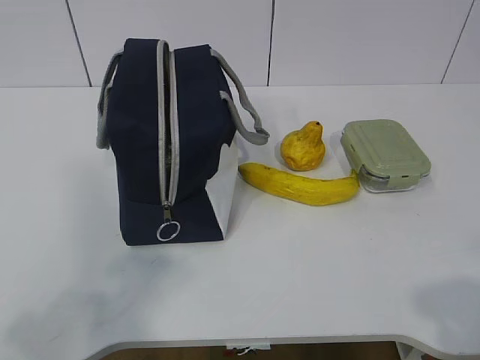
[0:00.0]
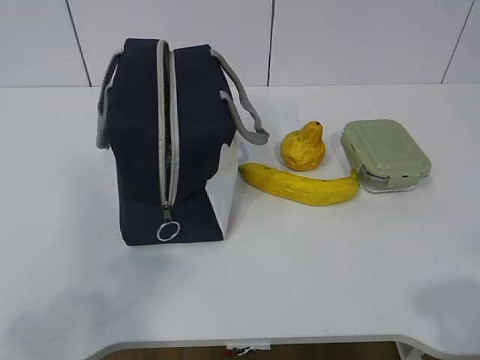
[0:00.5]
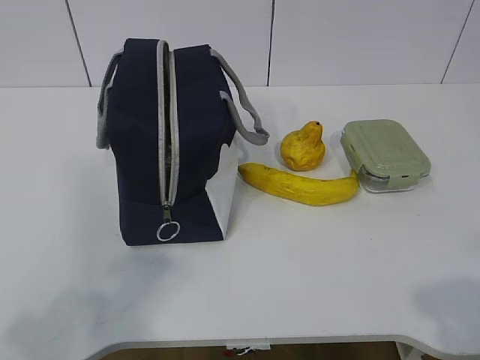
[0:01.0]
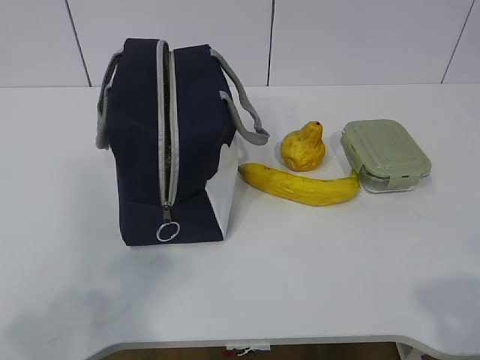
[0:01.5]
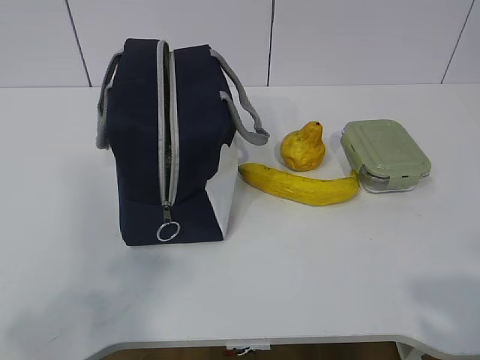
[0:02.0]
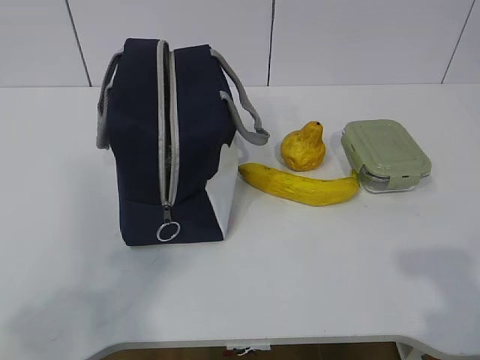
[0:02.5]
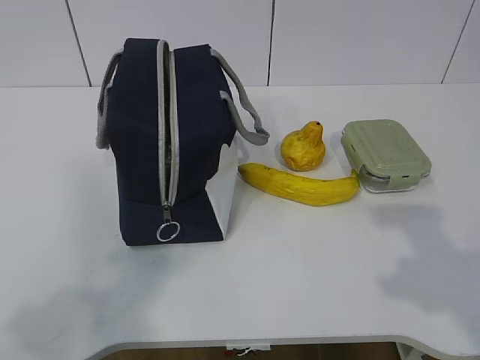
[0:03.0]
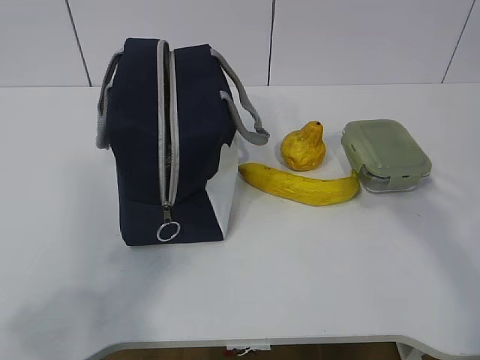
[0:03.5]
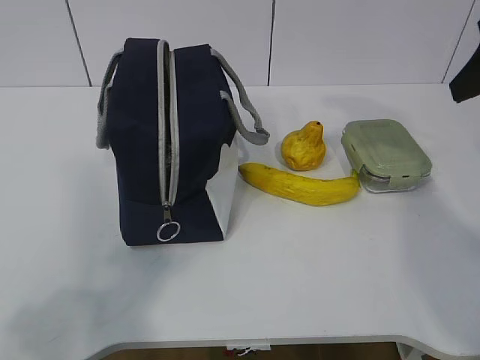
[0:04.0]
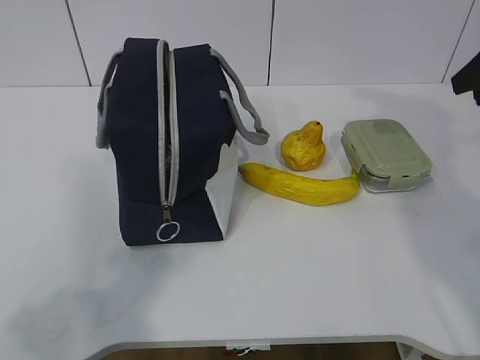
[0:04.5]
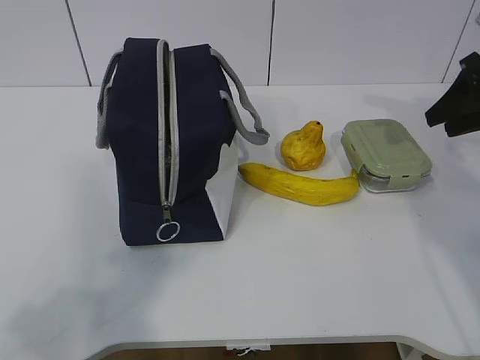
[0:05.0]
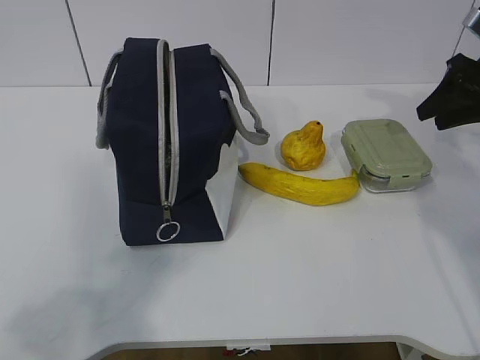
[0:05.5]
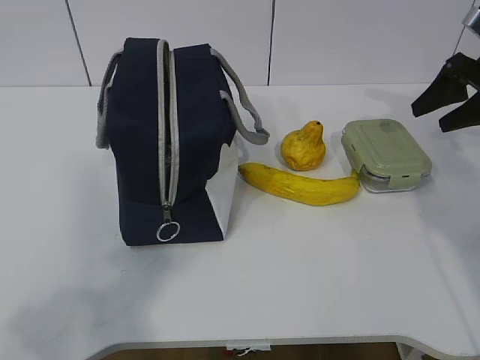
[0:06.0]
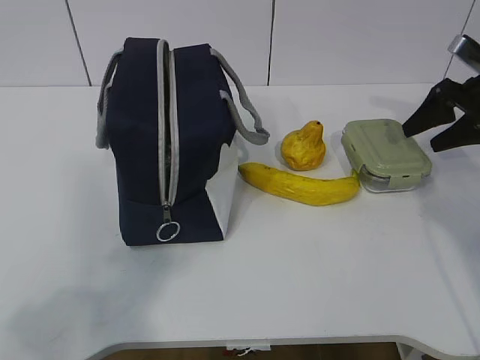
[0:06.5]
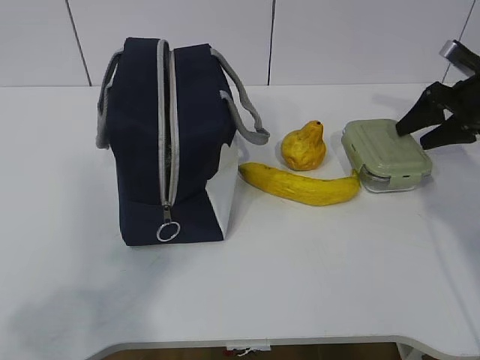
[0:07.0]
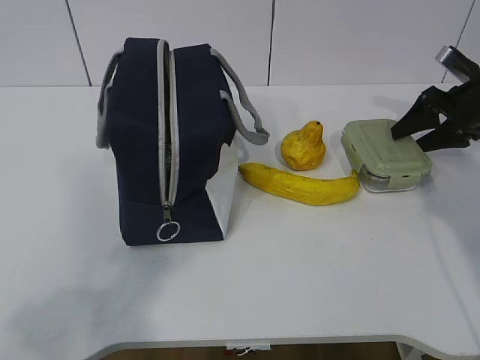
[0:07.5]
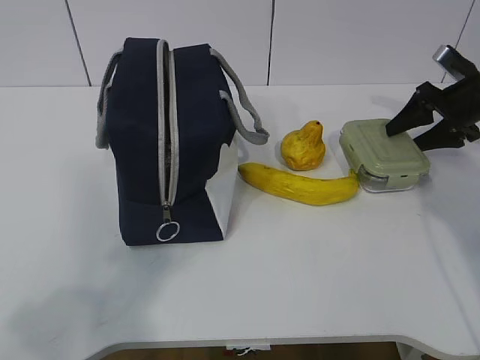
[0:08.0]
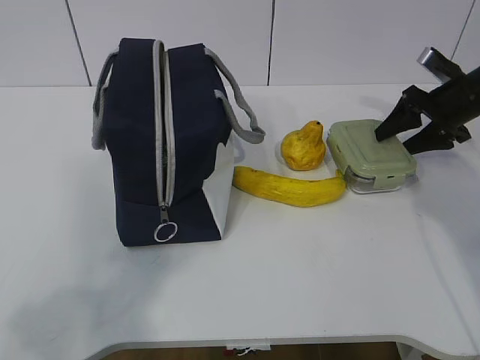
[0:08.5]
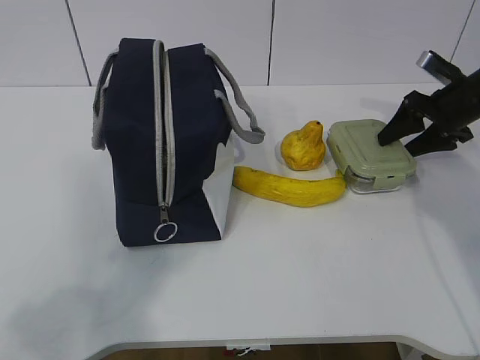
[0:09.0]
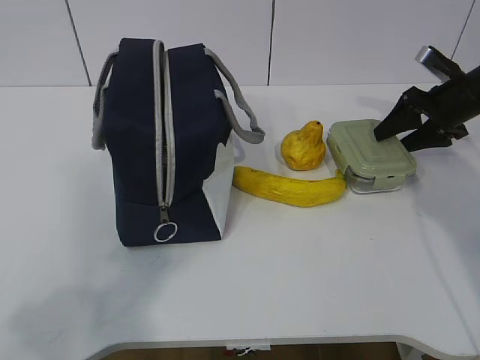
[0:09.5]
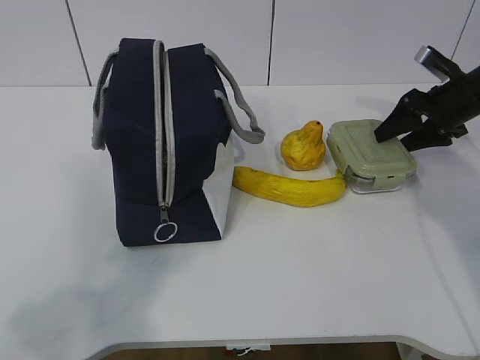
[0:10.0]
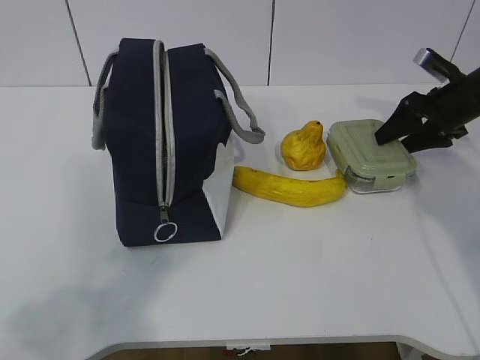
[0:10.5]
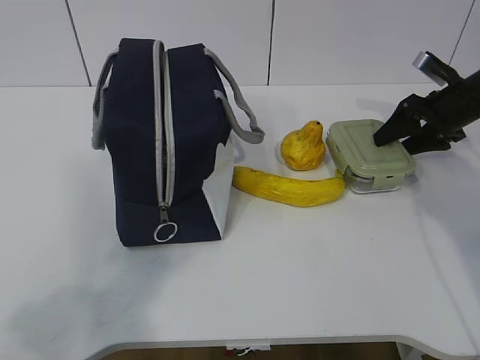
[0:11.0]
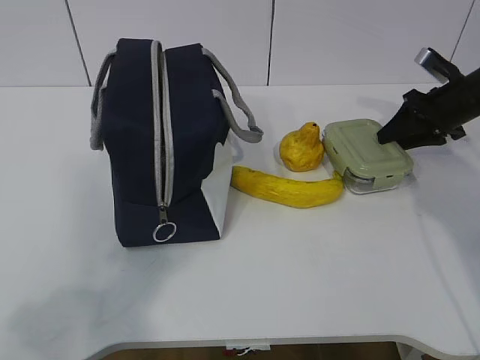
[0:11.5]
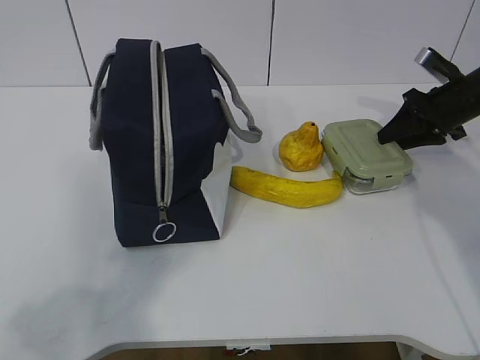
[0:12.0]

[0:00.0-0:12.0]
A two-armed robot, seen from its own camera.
0:02.0 to 0:04.0: The right gripper moves forward, roughly 30 cm.
0:04.0 to 0:06.0: The right gripper heads forward, downward and to the right, covering roughly 20 cm.
0:06.0 to 0:08.0: The right gripper is displaced downward by about 5 cm.
0:08.0 to 0:10.0: There are only small adjustments of the grippers.
0:10.0 to 0:12.0: The right gripper closes.

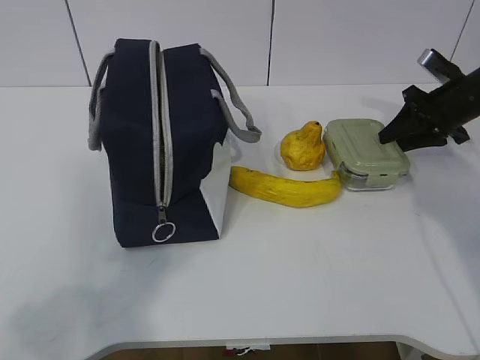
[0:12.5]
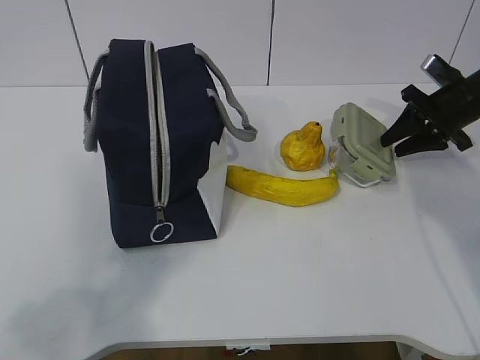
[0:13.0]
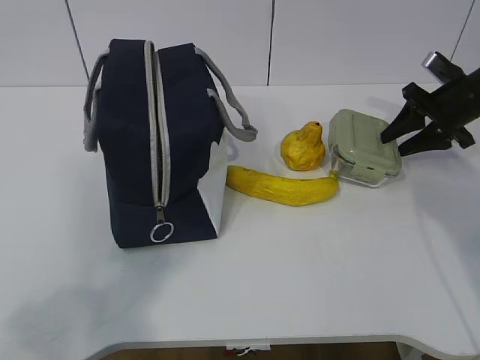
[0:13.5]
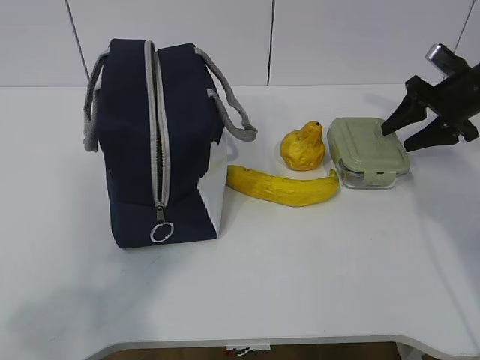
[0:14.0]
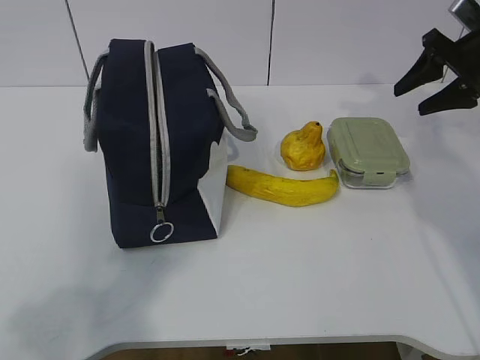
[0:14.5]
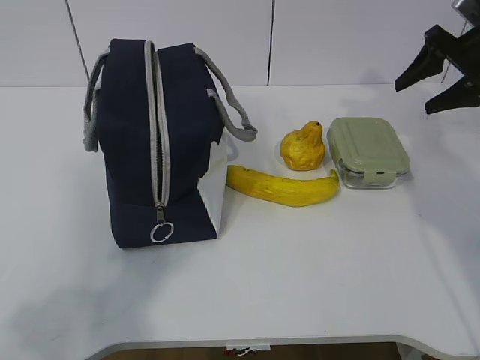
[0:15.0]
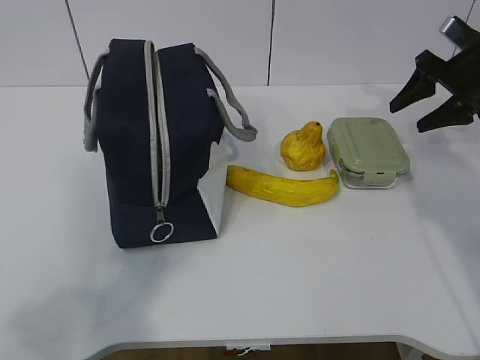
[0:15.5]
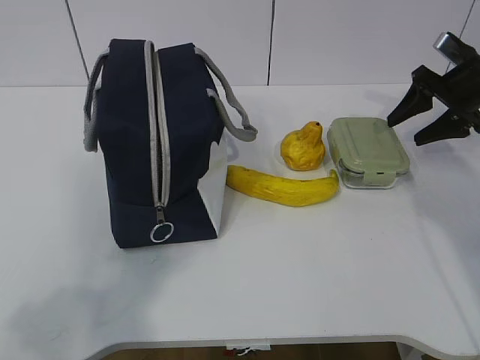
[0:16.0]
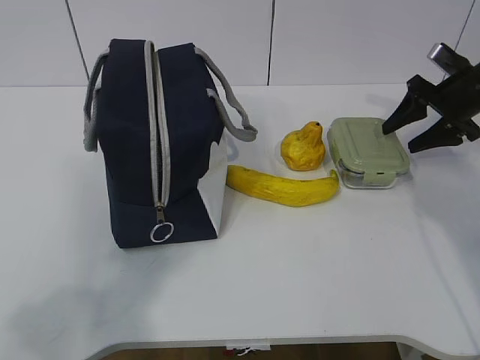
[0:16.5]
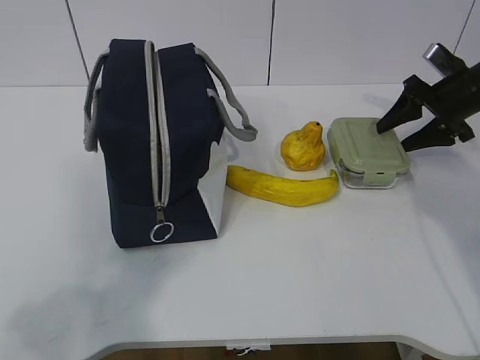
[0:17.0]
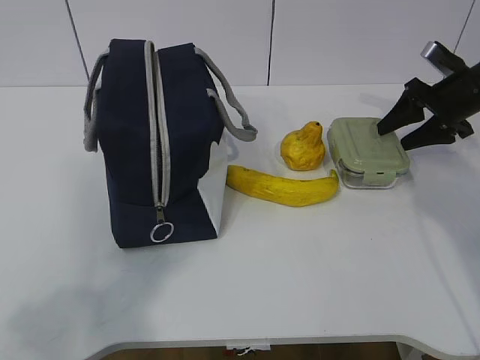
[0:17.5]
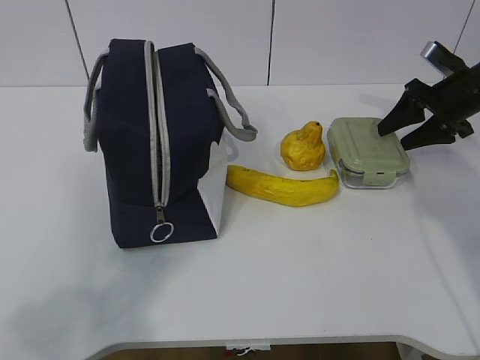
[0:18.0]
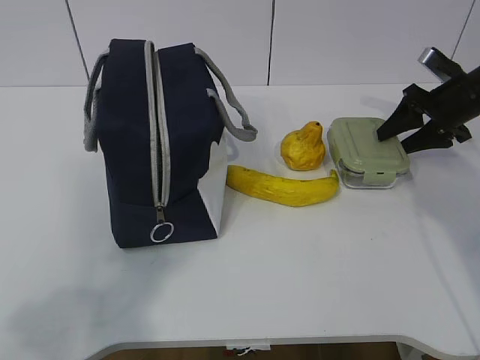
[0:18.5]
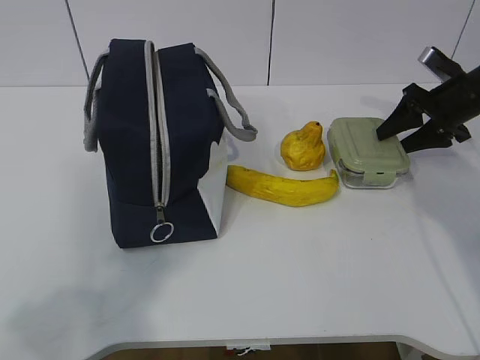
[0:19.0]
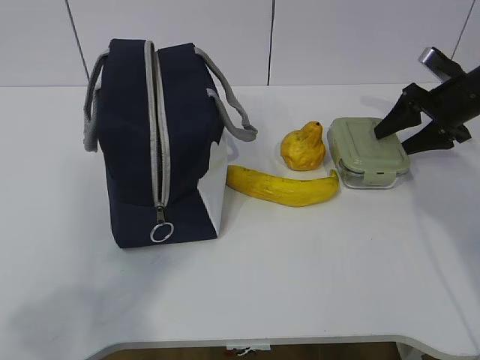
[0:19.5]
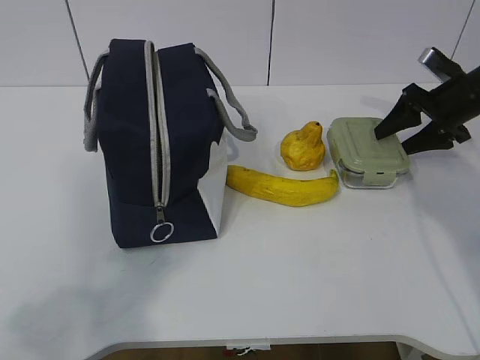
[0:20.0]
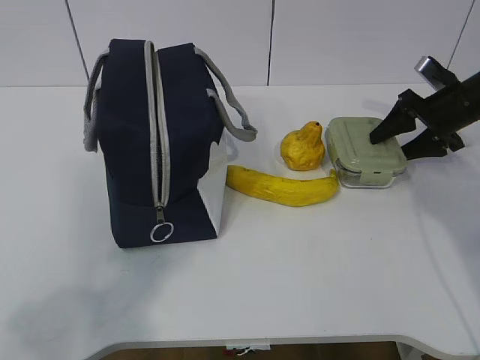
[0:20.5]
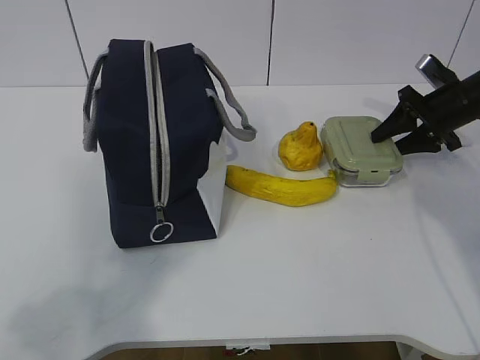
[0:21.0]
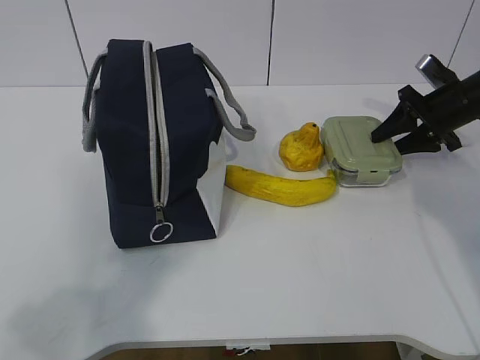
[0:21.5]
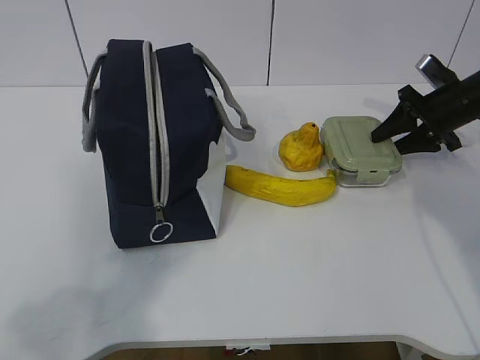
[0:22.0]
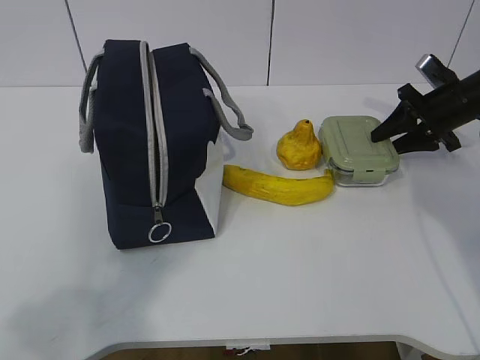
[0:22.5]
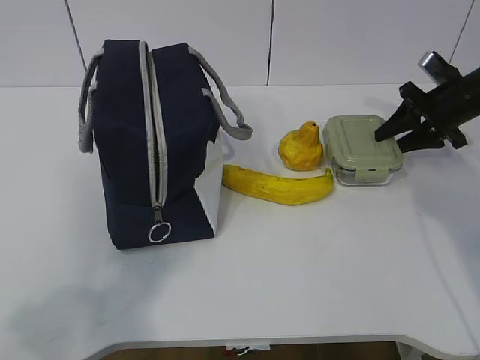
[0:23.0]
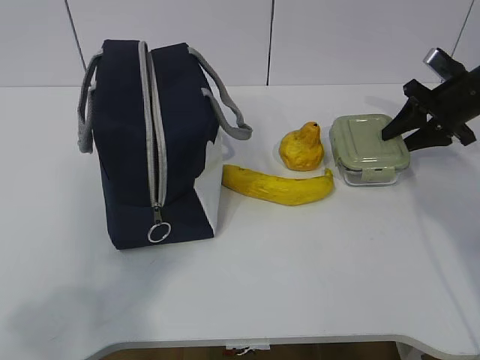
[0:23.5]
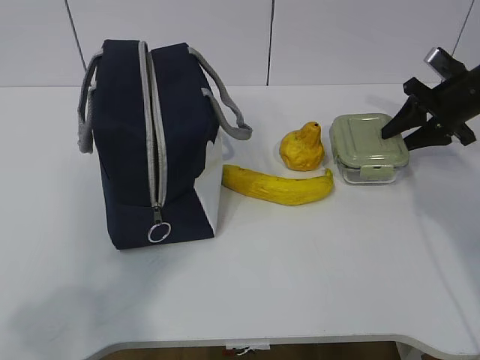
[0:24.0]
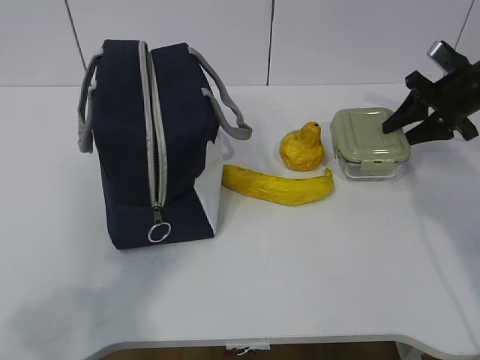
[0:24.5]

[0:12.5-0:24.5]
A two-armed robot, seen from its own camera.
Step, 0:12.5 to 0:19.0: Grab the lunch box with your right hand.
0:12.5 to 0:14.5: The right gripper moves upward, about 10 cm.
0:14.5 to 0:16.5: The right gripper travels downward by approximately 5 cm.
0:16.5 to 0:20.5: There are only small adjustments of the grippers.
0:20.5 to 0:22.5: The right gripper closes.
0:22.5 to 0:24.5: The grippers move only a little.

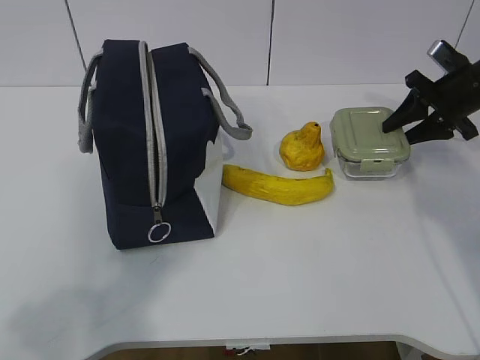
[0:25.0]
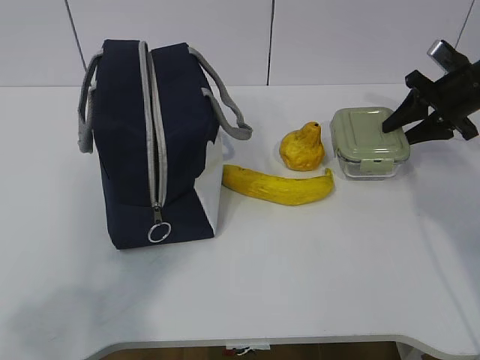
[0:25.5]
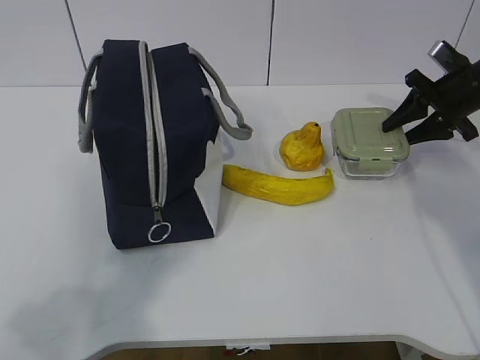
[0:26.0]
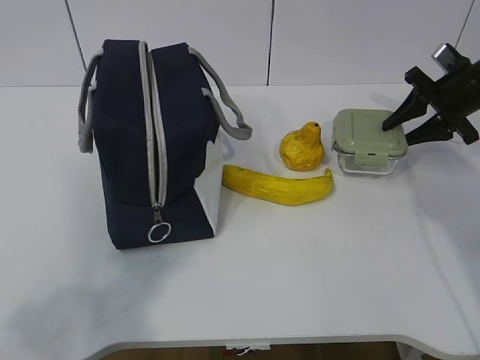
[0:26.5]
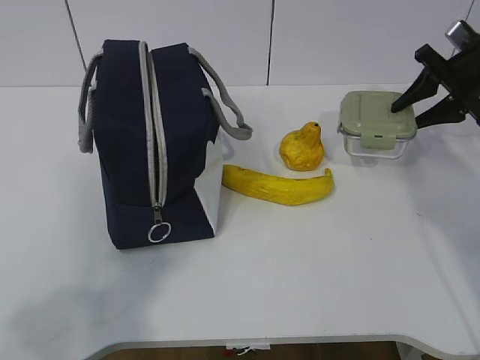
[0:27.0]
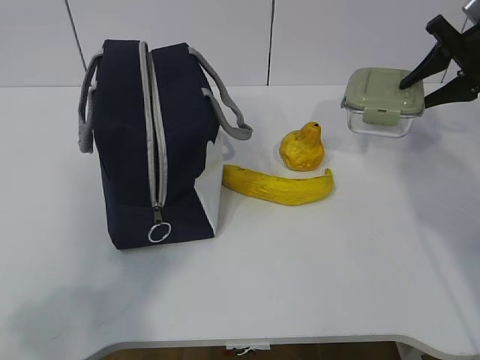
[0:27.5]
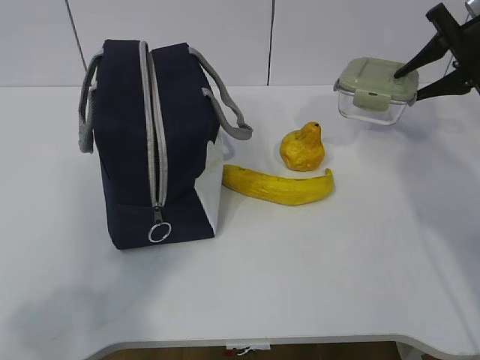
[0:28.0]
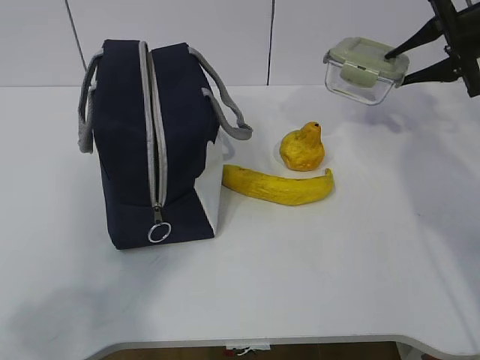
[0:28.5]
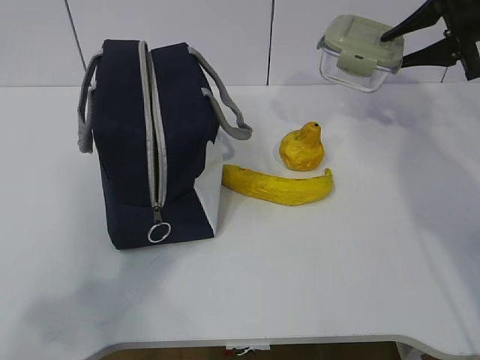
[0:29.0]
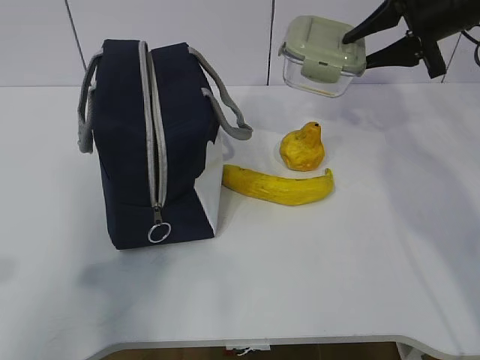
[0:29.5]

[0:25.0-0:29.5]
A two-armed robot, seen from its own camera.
0:25.0 to 0:27.0: There are only small adjustments of the grippers.
0:27.0 to 0:29.5: The right gripper is displaced upward and to the left by roughly 10 cm, while the left gripper travels forward by some 5 cm.
